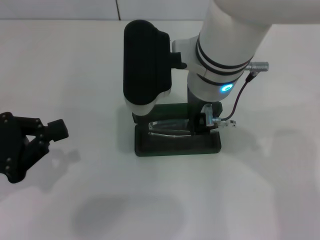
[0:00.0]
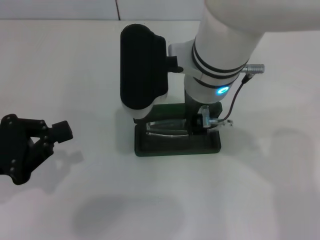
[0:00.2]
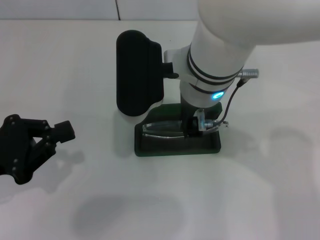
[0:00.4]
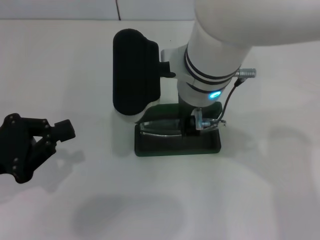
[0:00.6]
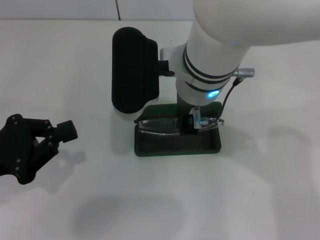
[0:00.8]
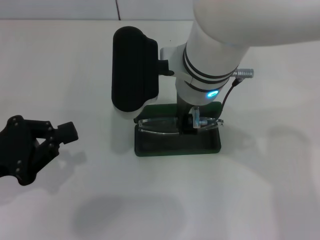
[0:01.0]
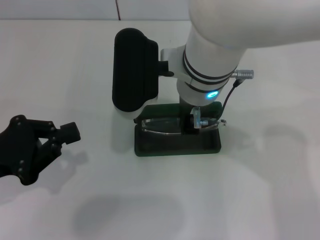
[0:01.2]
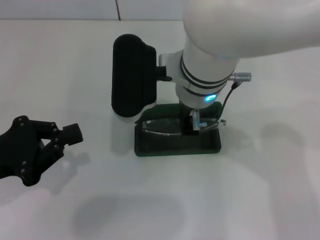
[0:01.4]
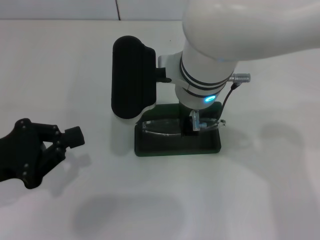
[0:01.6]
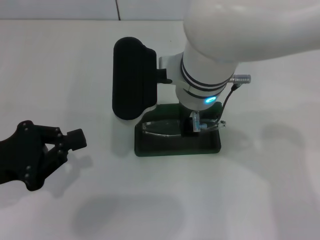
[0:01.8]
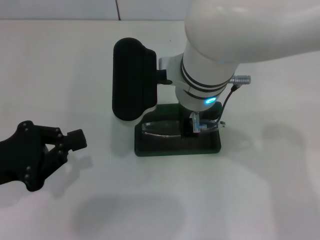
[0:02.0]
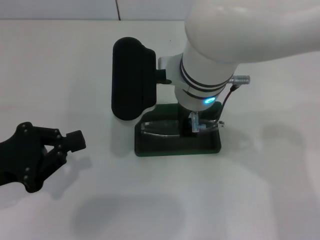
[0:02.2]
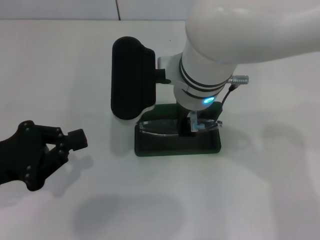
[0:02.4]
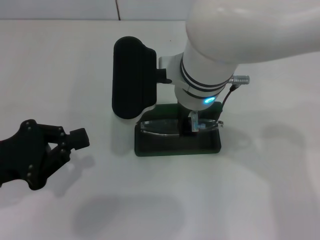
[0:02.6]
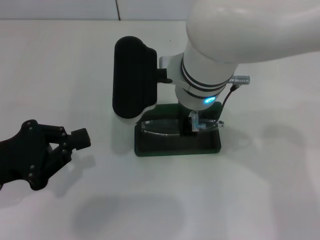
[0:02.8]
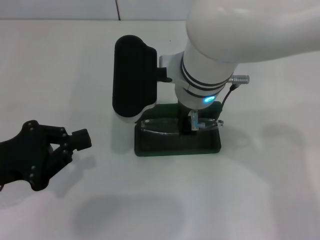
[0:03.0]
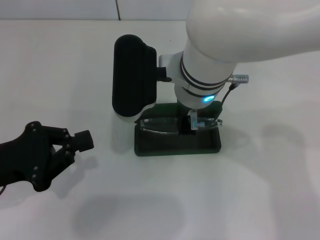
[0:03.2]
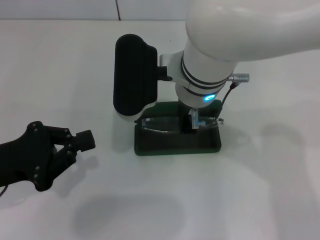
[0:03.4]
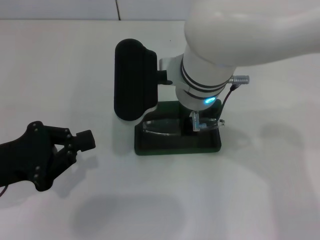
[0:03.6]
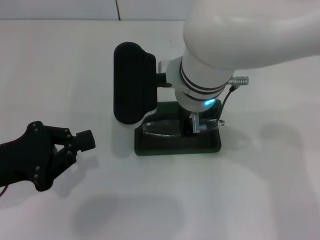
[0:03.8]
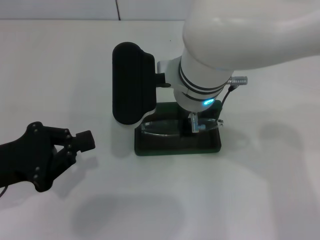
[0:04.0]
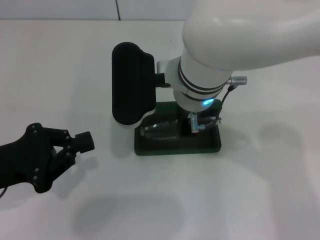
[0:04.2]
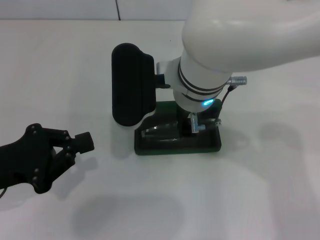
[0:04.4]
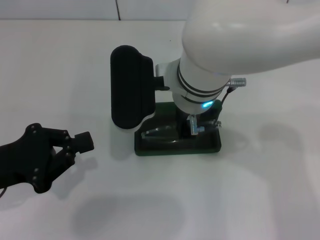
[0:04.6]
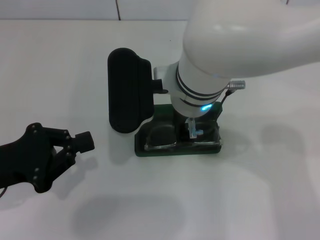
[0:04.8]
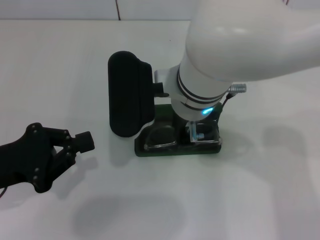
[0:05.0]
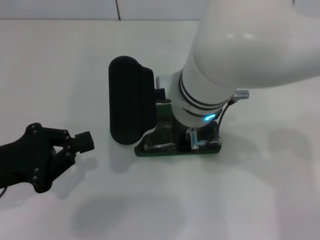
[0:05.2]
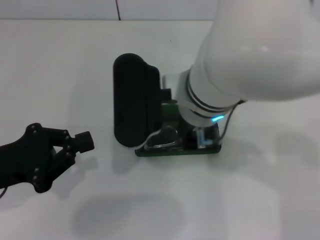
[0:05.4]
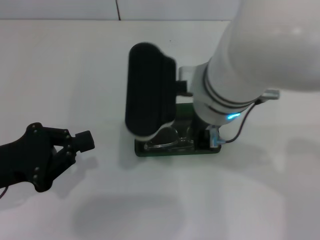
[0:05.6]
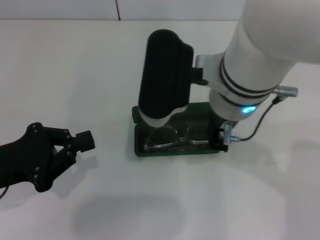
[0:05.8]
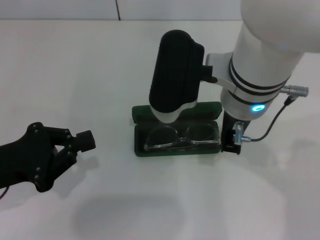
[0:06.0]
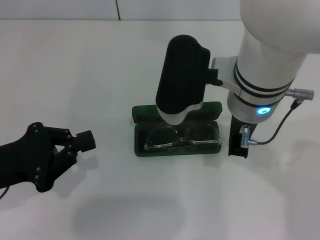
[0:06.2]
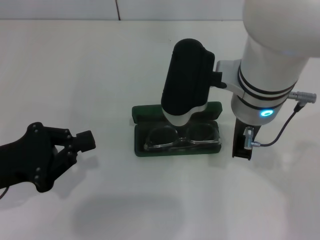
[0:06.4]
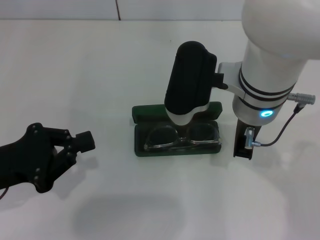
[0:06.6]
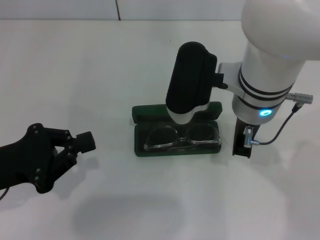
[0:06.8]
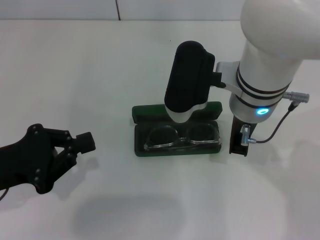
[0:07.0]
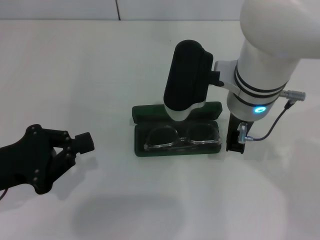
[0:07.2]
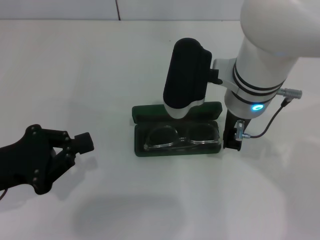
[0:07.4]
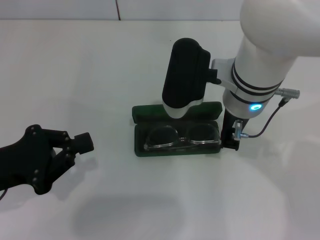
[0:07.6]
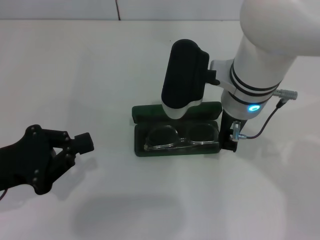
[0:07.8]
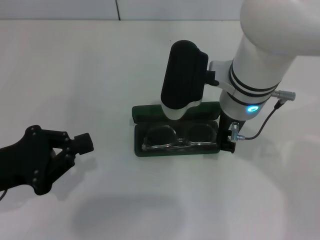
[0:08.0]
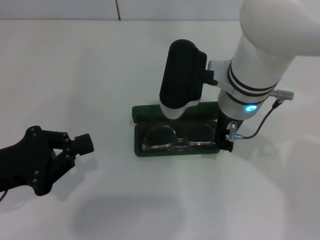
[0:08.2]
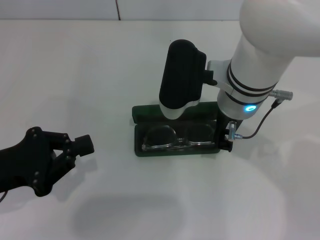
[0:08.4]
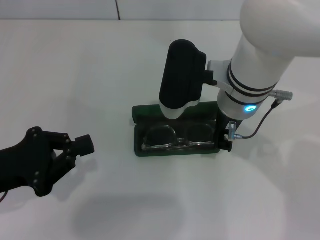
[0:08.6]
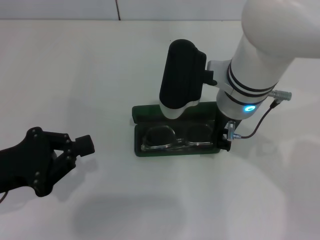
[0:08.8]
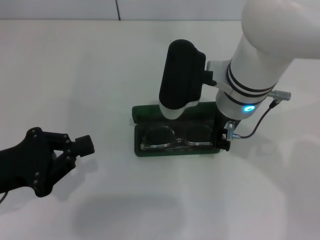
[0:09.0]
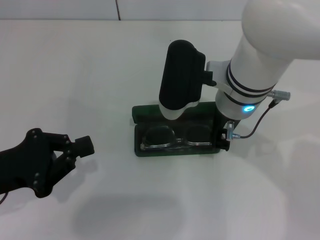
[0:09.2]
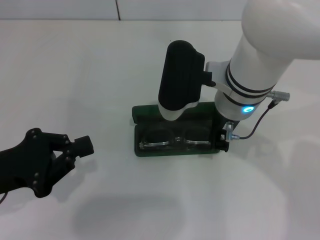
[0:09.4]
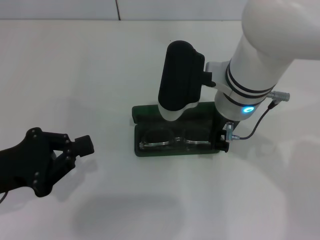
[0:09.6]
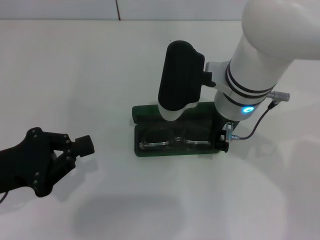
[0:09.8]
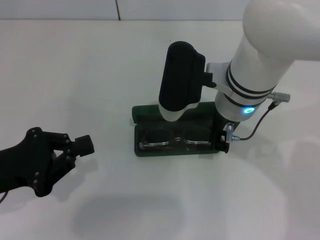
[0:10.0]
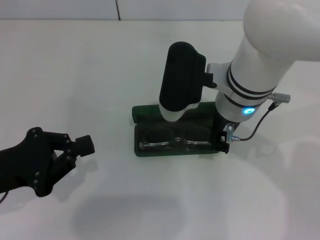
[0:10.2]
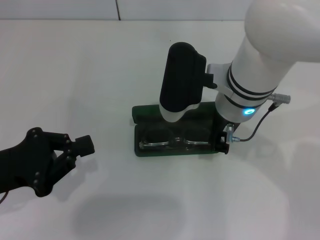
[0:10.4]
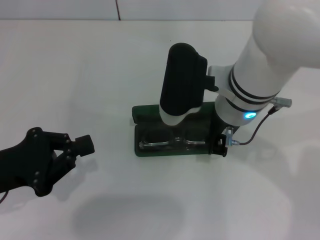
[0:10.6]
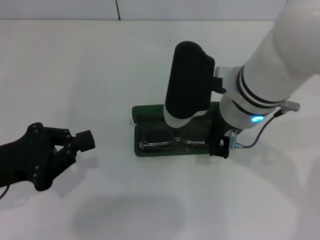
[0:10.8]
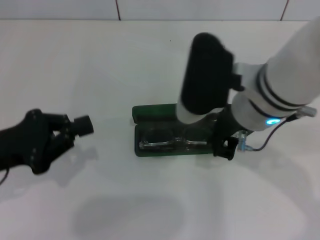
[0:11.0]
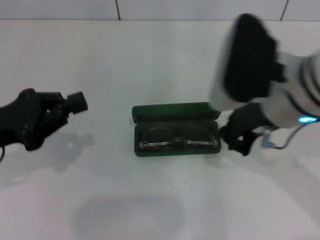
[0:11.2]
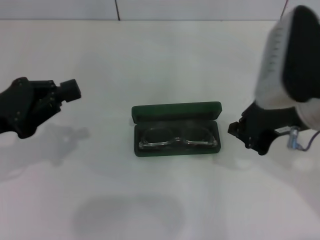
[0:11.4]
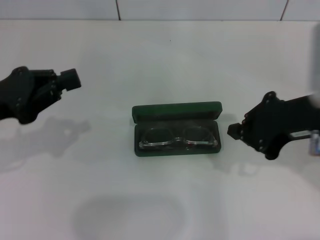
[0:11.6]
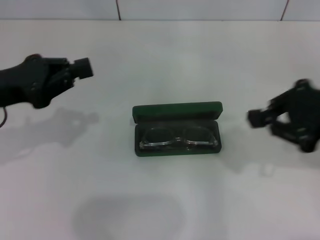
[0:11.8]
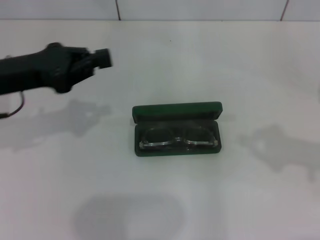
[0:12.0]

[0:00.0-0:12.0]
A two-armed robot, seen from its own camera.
Step, 0.0 to 11.2 s: Put the glasses into the case with your right hand.
0.0 to 1.6 s: The grippers stay close to where they were, moving slightly.
1.6 to 4.4 s: Both grippers stay about where they are.
4.4 to 6.0 s: The right gripper is displaced to the right by about 5 cm.
6.0 to 7.6 s: The right gripper ends up roughly 5 cm from where it was.
7.6 to 9.0 s: Both grippers stay about where they are.
9.0 to 10.4 s: Neither gripper changes place.
10.4 to 12.0 s: The right gripper is displaced to the right by approximately 30 cm. Meanwhile the left gripper is displaced forward and upward by about 10 cm.

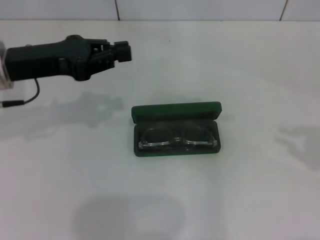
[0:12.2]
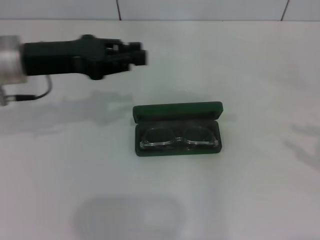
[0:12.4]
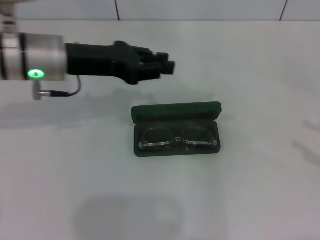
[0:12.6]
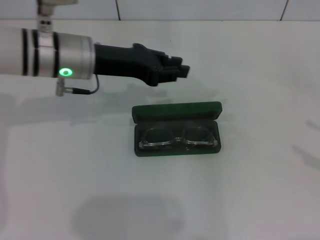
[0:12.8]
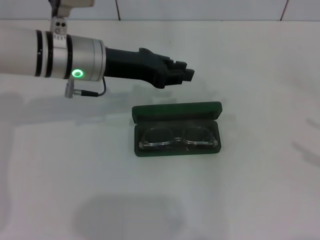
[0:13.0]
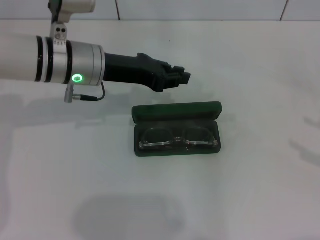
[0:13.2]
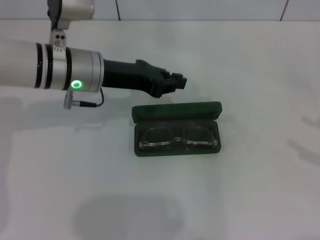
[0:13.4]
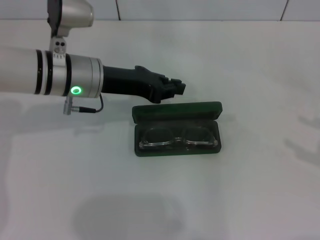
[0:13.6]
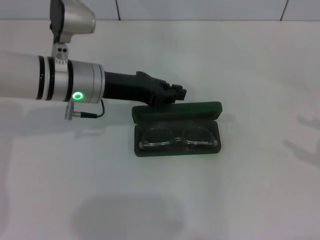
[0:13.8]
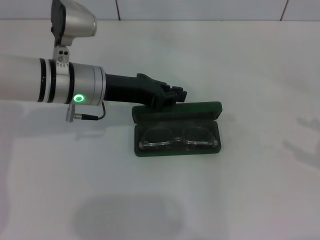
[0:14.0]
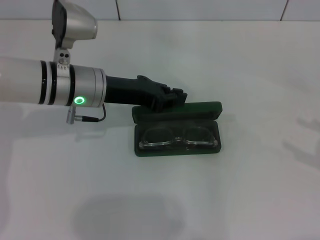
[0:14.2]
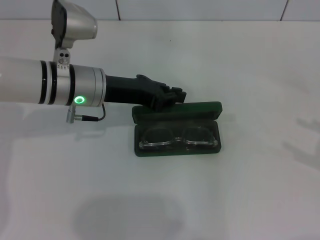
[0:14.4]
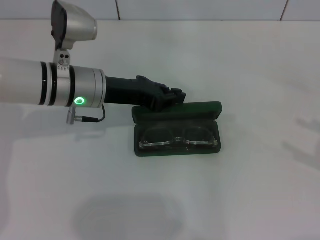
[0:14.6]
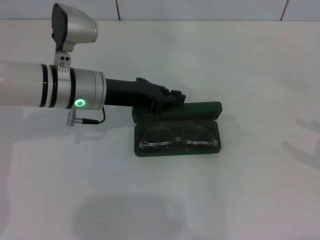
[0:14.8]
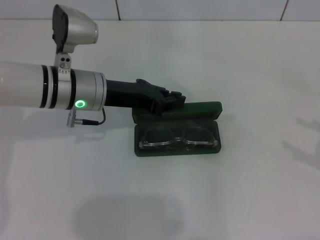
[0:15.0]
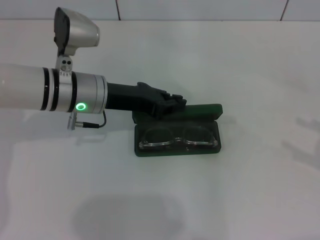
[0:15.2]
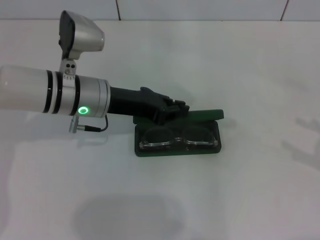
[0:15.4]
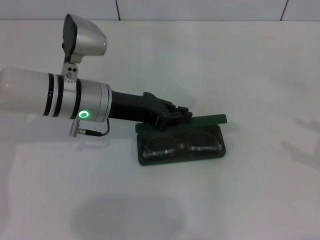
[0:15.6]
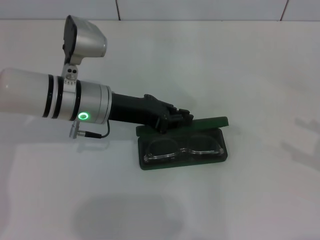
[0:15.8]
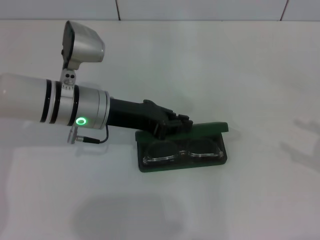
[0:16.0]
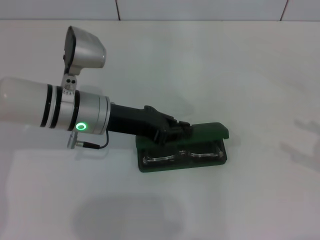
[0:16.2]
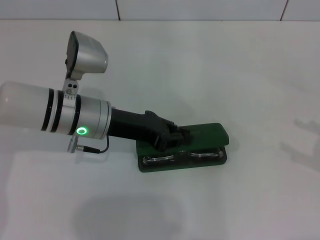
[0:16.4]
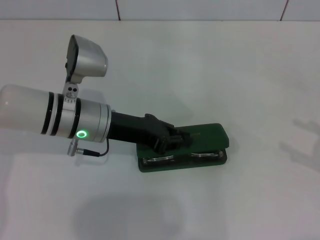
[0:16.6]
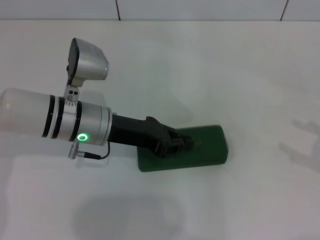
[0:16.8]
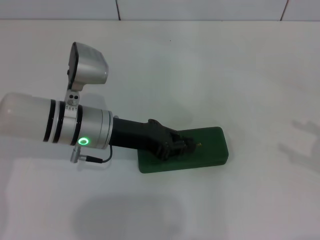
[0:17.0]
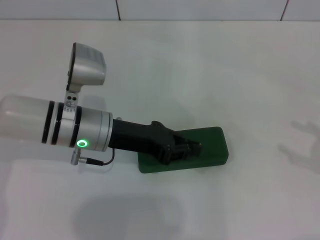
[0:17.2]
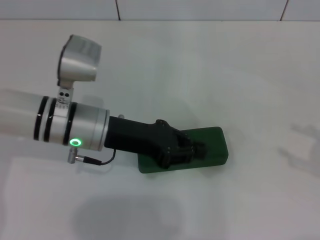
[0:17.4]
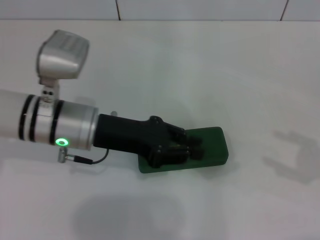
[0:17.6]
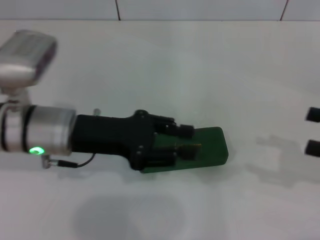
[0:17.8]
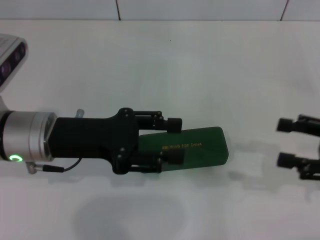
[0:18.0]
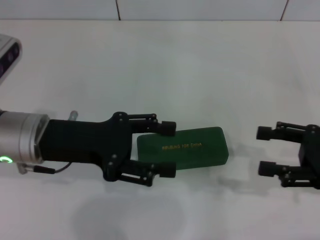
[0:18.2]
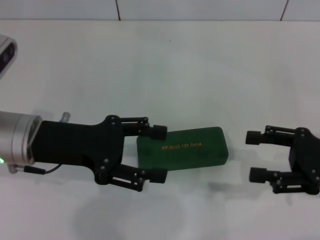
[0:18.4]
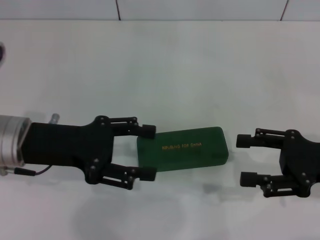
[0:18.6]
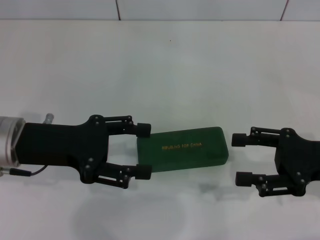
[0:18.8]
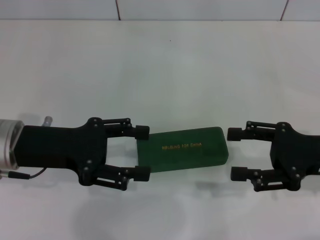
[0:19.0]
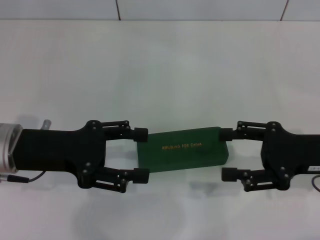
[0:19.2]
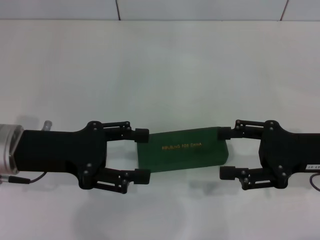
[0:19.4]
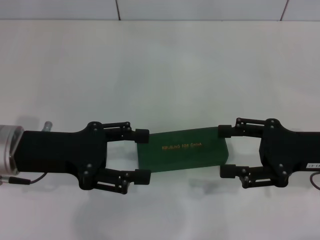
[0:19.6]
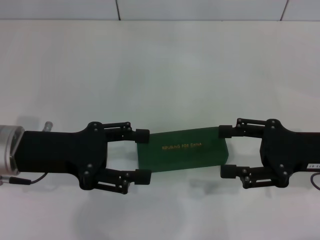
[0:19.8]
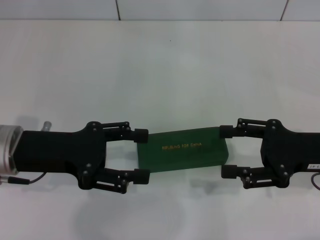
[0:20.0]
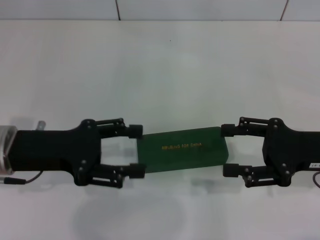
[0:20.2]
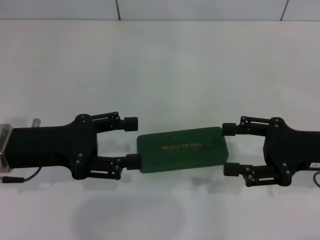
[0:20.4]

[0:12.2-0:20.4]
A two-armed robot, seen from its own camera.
Step, 12.2 to 17.2 s: Close the glasses case with your left hand.
12.2 to 13.8 s: The right gripper opens up; the left gripper heads to the right and downward, covering about 10 cm.
13.8 to 17.2 s: The grippers stay close to where they were, moving slightly.
17.2 to 18.8 s: Both grippers travel together to the left, roughly 10 cm. The left gripper opens up.
18.8 to 20.4 s: The grippers make only small movements.

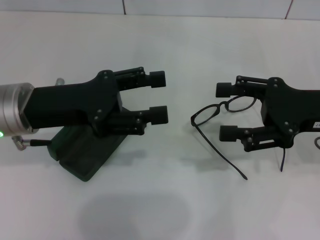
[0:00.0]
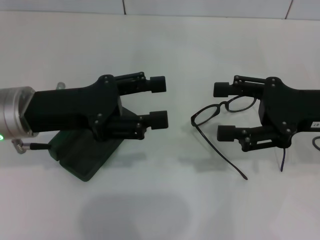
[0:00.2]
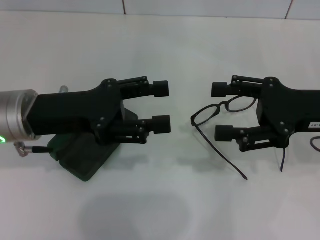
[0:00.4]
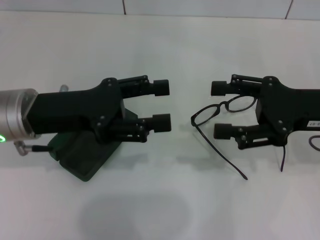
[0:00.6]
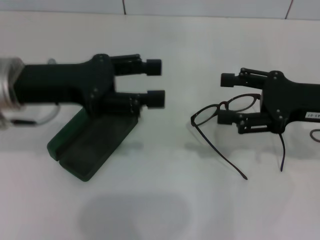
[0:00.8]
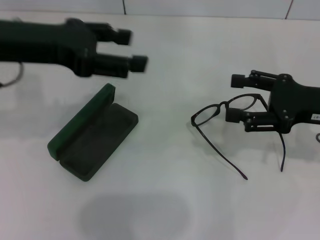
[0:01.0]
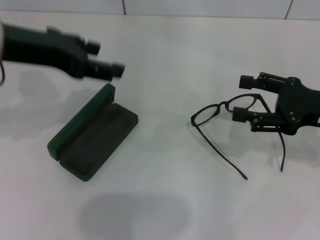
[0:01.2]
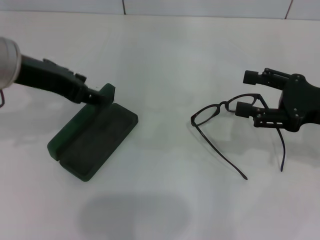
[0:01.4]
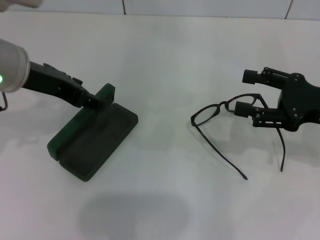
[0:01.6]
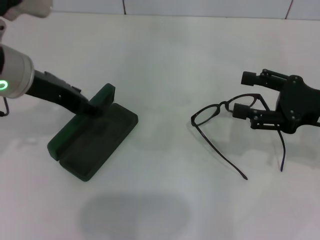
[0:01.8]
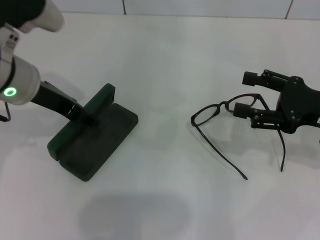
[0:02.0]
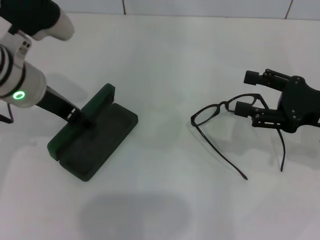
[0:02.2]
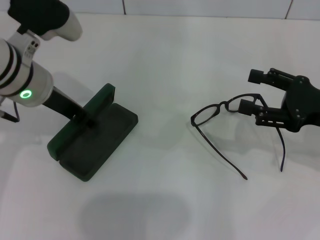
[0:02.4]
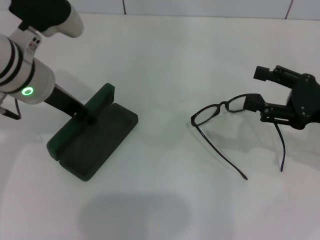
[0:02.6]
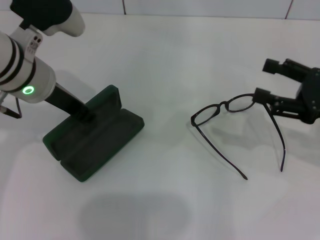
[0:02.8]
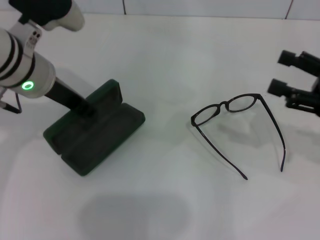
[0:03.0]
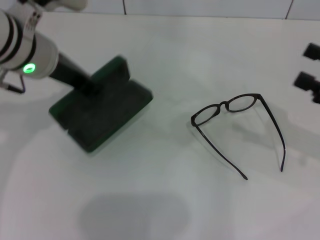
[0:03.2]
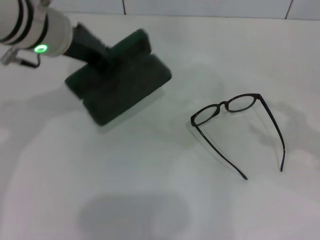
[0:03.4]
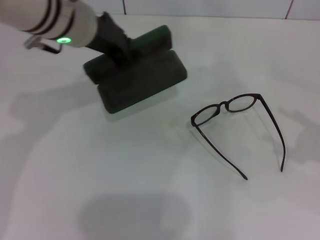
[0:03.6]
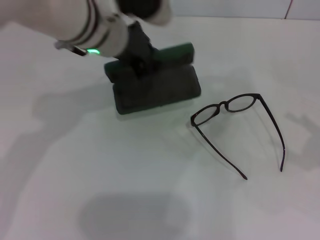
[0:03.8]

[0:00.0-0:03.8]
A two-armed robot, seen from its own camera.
Step, 0.0 to 2.8 s: Grab the glasses case with your left hand.
0.0 to 1.2 s: The left gripper is displaced upward by approximately 10 cm.
1.2 to 2.6 s: The left gripper shifts roughly 10 cm downward.
2.6 to 3.8 s: The right gripper travels to the right and backward by approximately 15 cm, while the left gripper heads to the right, covering some 10 cm, and closes up.
